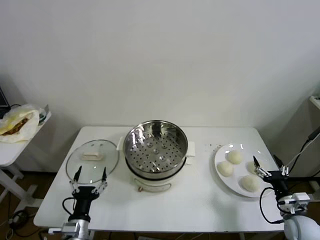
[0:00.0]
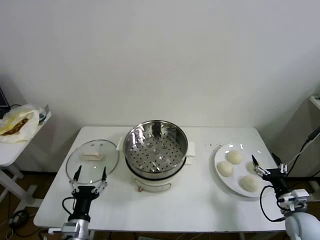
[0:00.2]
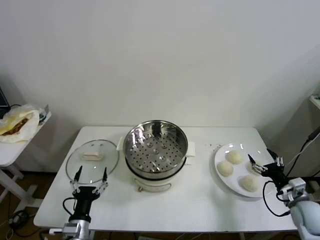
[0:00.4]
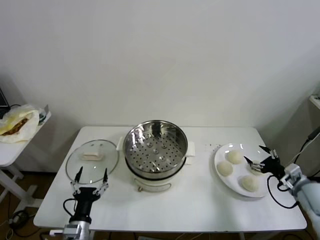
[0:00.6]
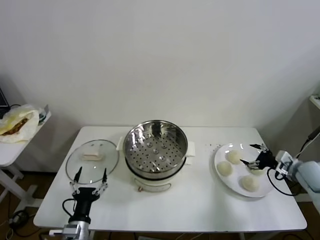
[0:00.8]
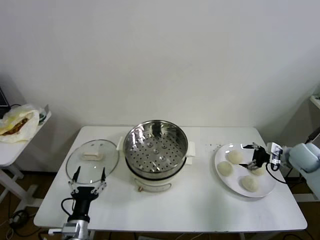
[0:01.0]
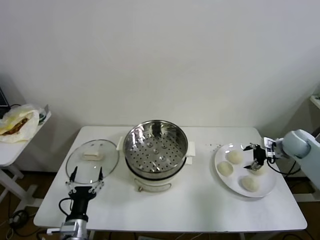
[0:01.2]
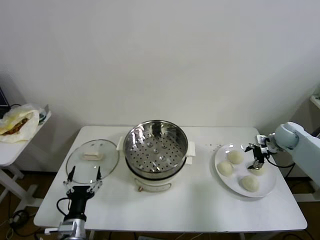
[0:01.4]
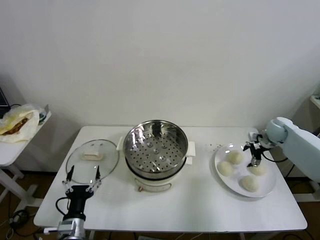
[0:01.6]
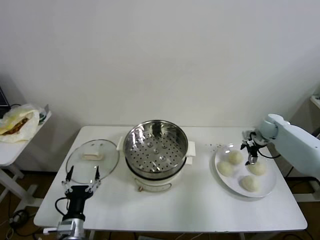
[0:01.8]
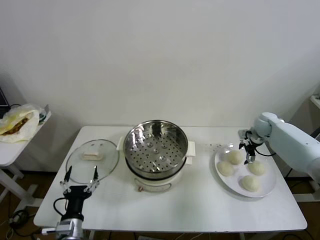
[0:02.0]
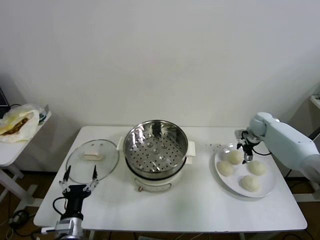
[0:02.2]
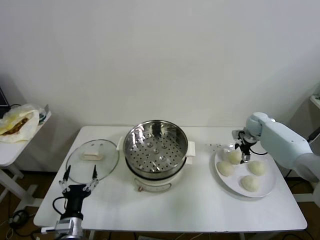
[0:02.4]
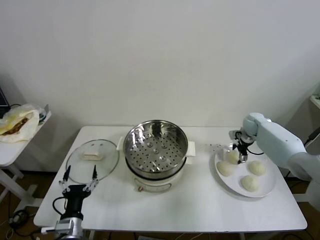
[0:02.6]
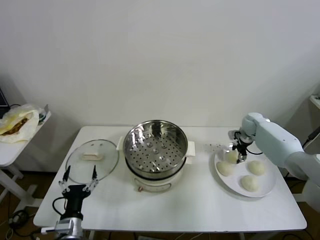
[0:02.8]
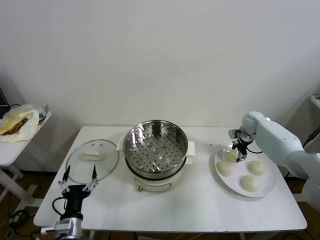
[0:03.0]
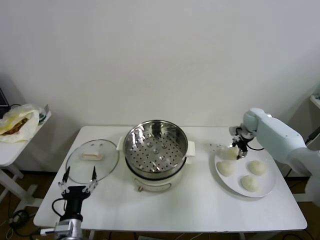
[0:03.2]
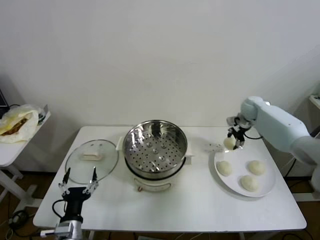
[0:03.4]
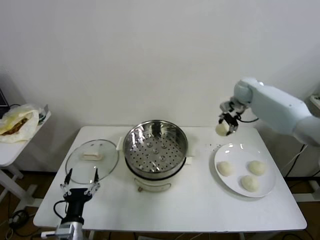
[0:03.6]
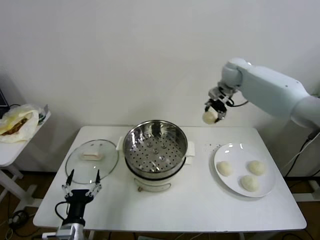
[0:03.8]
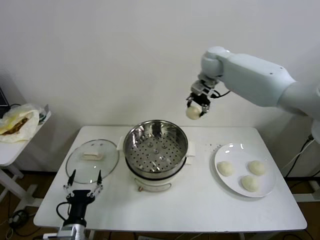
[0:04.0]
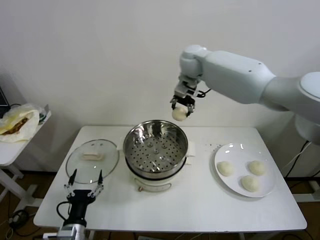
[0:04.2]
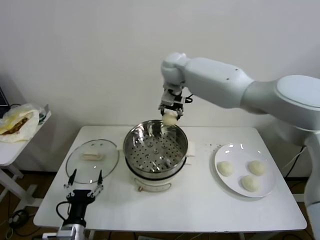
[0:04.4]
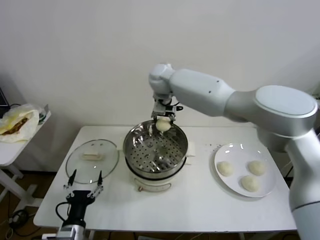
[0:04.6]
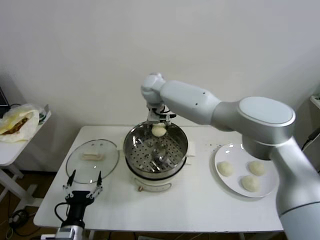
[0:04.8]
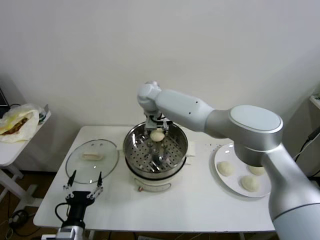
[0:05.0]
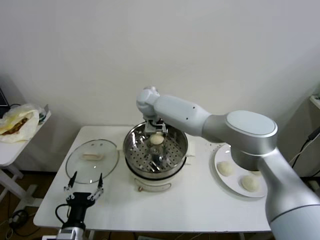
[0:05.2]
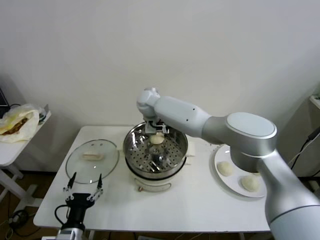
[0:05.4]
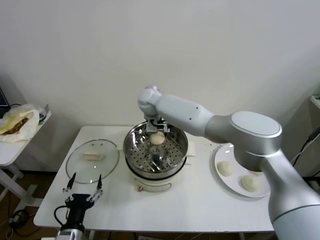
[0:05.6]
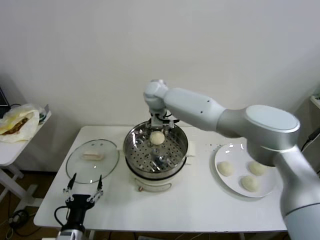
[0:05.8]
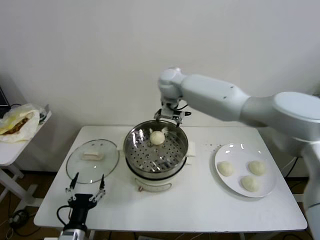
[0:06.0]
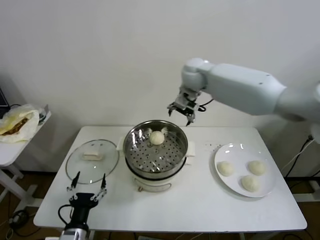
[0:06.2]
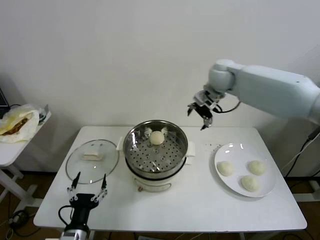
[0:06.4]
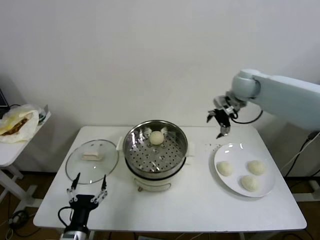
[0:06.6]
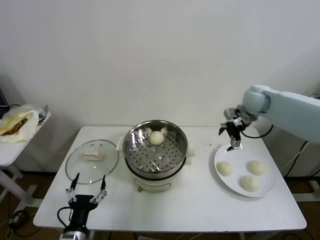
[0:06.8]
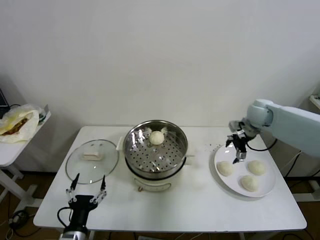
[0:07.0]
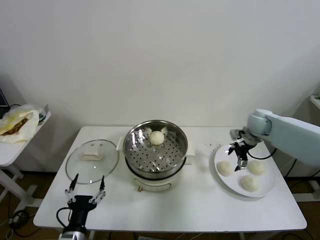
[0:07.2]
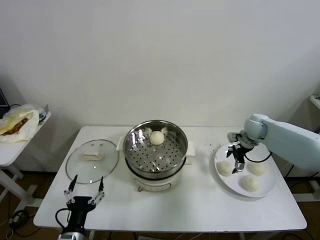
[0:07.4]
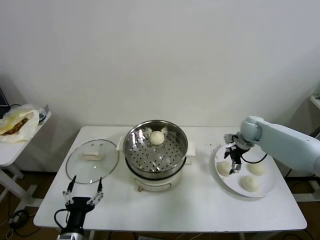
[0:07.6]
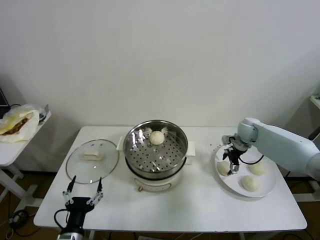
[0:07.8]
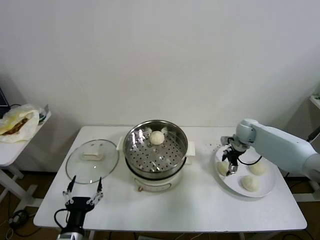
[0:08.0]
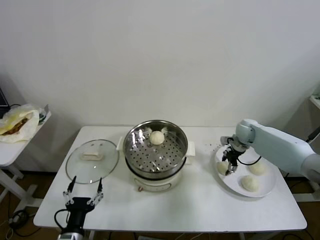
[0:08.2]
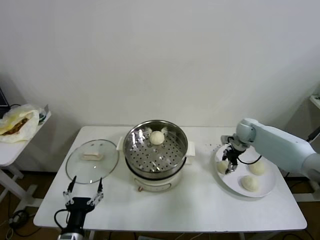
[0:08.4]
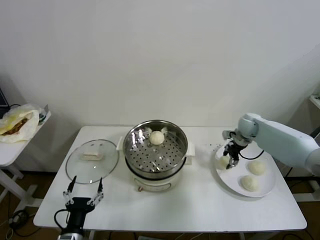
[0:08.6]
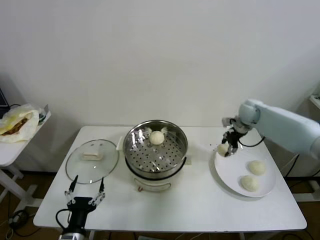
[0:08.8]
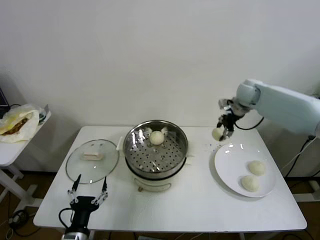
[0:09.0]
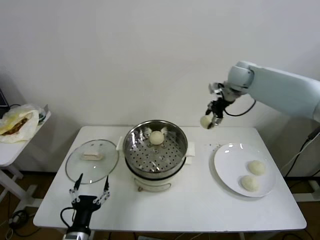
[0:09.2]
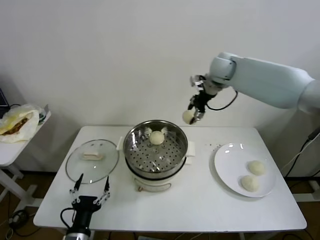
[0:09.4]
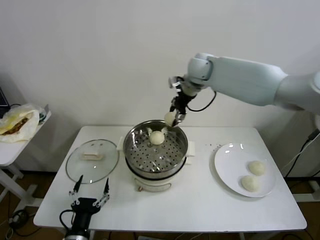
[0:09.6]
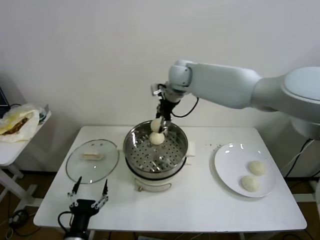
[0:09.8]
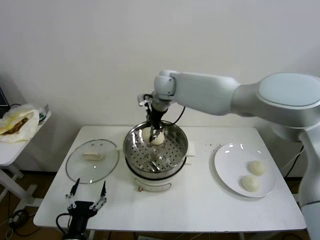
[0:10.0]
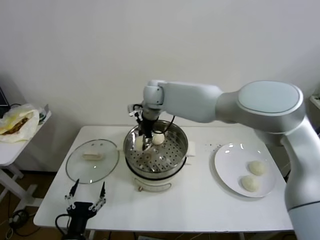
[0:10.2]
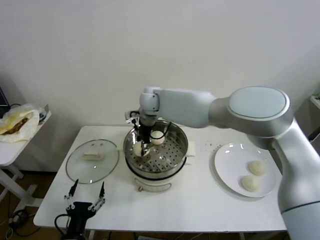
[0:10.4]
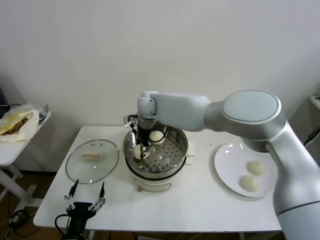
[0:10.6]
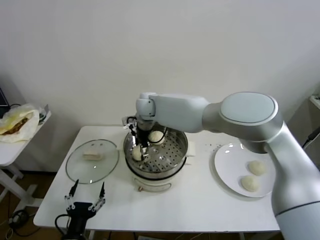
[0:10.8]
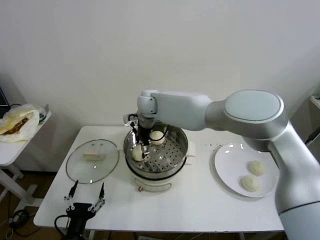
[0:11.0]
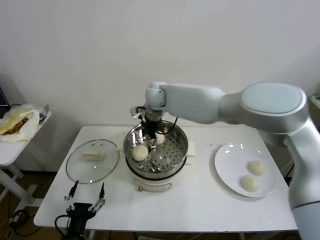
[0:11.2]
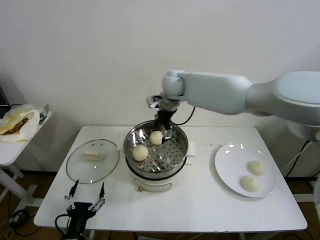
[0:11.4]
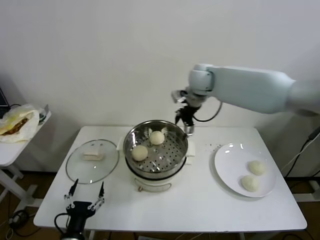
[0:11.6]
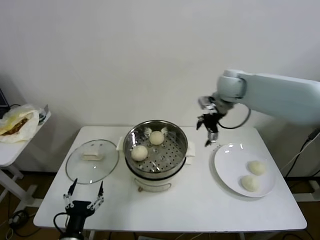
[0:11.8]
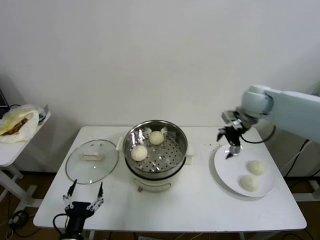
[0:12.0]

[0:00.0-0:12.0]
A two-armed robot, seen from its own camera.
Step, 0:00.0 to 0:02.8: Grasp the baozi in the plate with right gripper.
Step, 0:03.0 to 0:05.2: Place the baozi on the steamer with right gripper.
Step, 0:05.4 to 0:08.0: Grasp the baozi in the plate with right gripper.
Step, 0:08.2 to 0:10.6: Place the baozi on the steamer with right gripper.
0:01.6 to 0:03.0: The right gripper shifts approximately 10 cm forward and to the left, and closes its fingers.
0:03.0 to 0:04.4: The right gripper shifts about 40 cm to the left and upward.
0:04.4 to 0:06.0: The right gripper travels to the right by about 5 cm, and opens.
0:06.0 to 0:07.6: The right gripper moves to the right and downward, approximately 35 cm.
0:07.6 to 0:09.0: The right gripper goes approximately 20 cm upward, and closes.
0:09.0 to 0:10.4: The right gripper shifts roughly 35 cm to the left.
0:10.4 to 0:12.0: The right gripper is displaced to the right by some 35 cm, and opens its fingers.

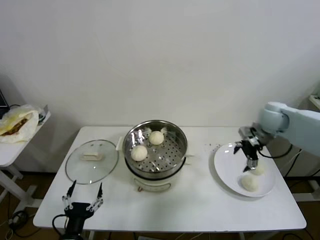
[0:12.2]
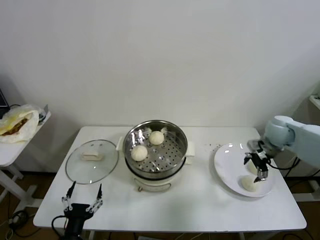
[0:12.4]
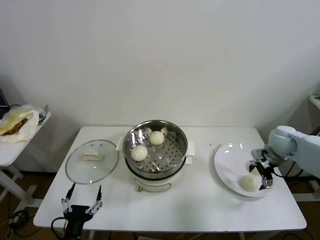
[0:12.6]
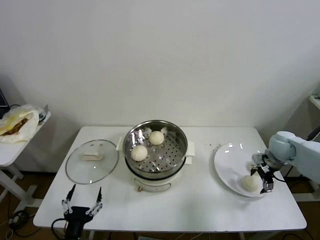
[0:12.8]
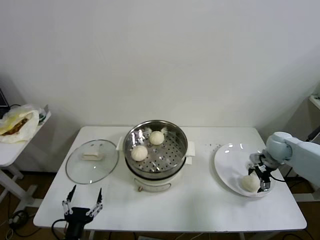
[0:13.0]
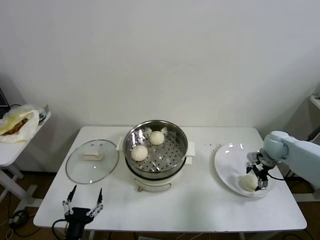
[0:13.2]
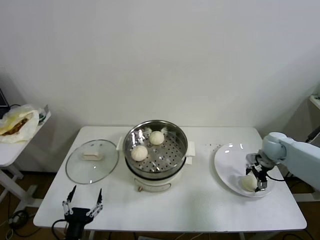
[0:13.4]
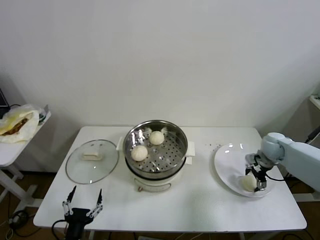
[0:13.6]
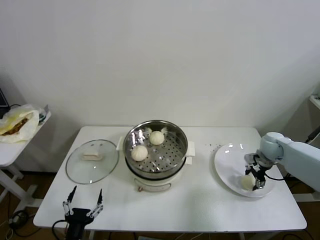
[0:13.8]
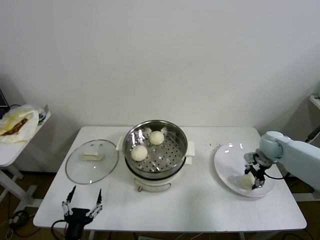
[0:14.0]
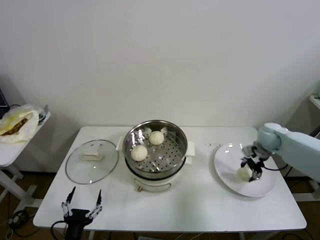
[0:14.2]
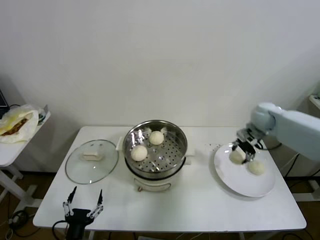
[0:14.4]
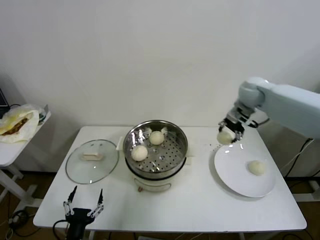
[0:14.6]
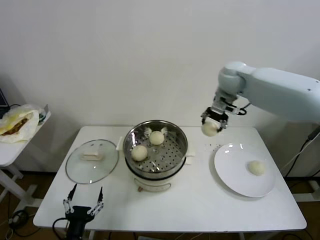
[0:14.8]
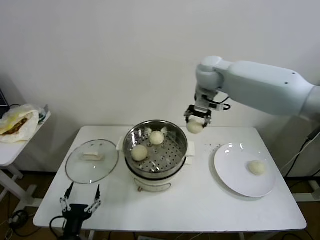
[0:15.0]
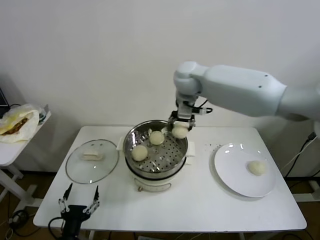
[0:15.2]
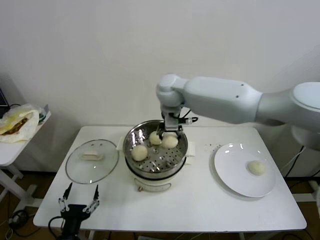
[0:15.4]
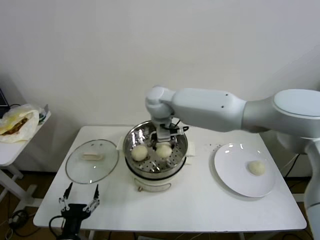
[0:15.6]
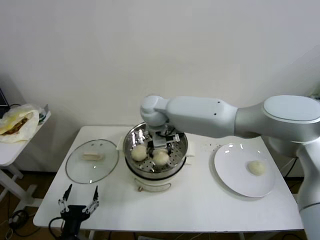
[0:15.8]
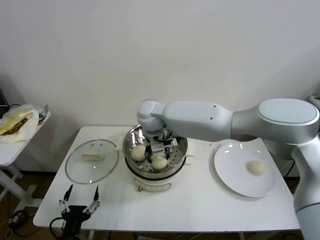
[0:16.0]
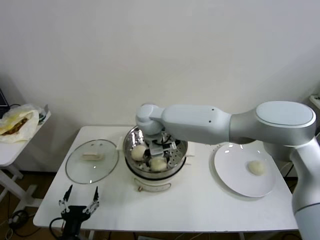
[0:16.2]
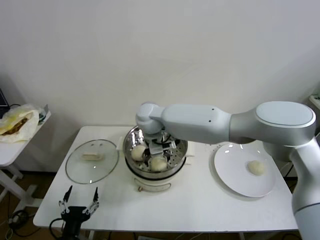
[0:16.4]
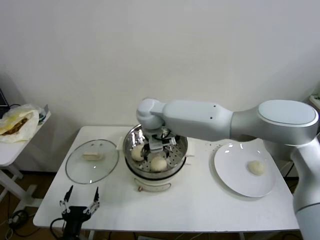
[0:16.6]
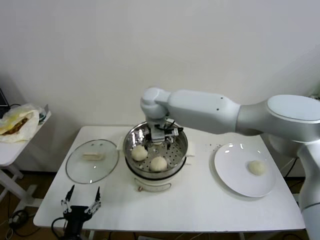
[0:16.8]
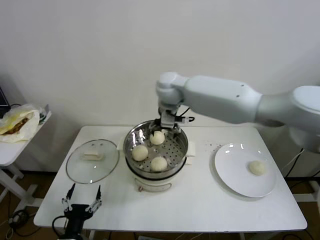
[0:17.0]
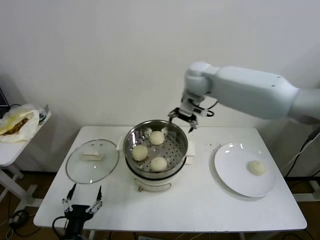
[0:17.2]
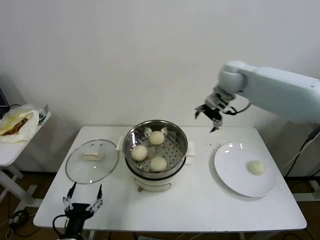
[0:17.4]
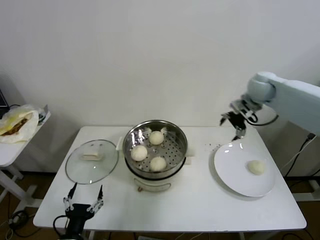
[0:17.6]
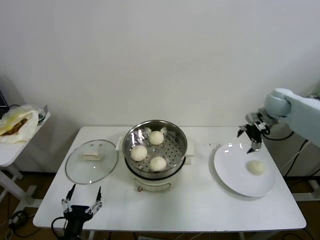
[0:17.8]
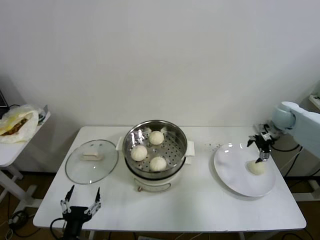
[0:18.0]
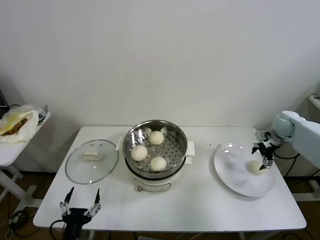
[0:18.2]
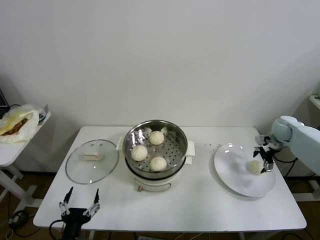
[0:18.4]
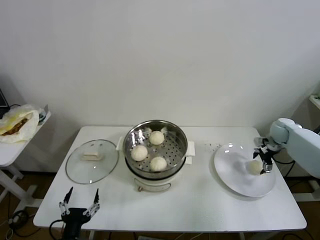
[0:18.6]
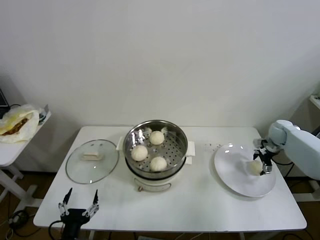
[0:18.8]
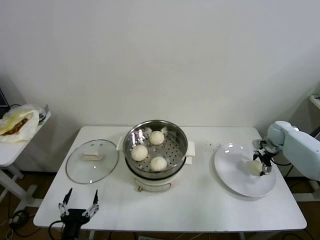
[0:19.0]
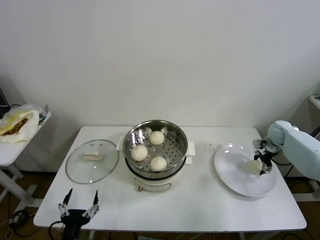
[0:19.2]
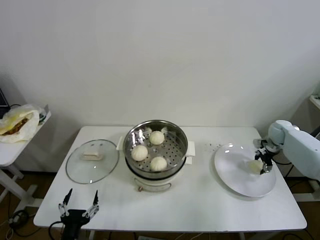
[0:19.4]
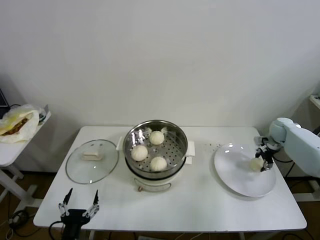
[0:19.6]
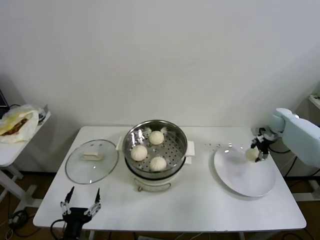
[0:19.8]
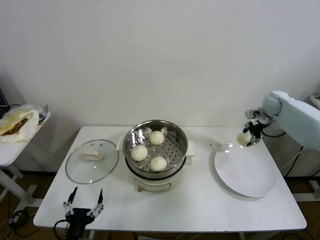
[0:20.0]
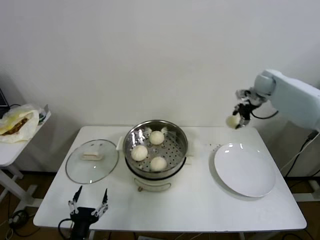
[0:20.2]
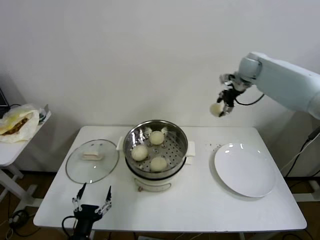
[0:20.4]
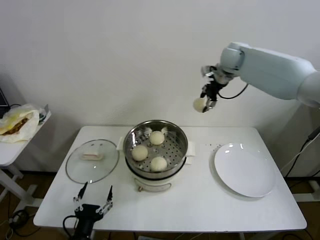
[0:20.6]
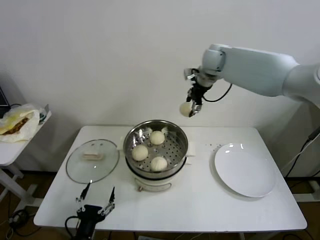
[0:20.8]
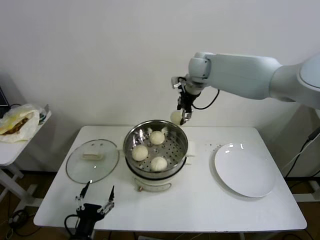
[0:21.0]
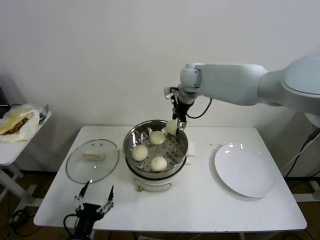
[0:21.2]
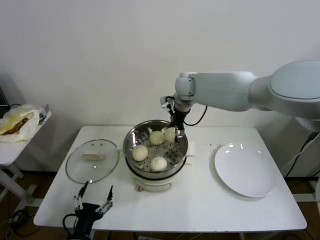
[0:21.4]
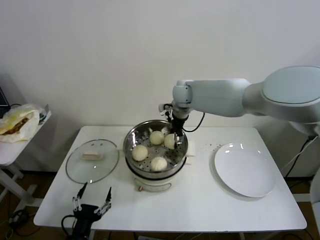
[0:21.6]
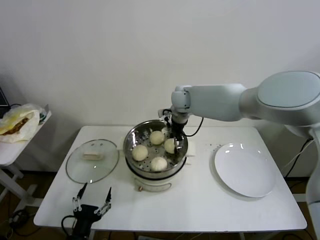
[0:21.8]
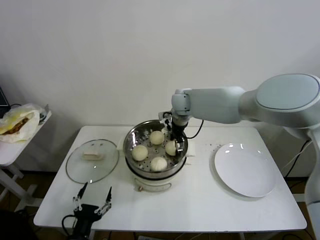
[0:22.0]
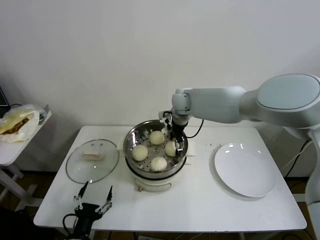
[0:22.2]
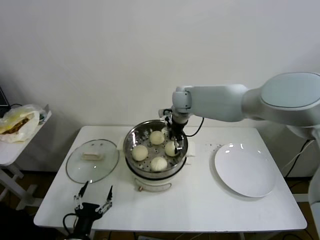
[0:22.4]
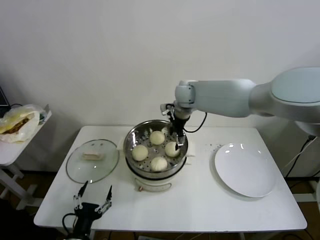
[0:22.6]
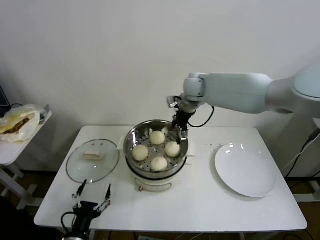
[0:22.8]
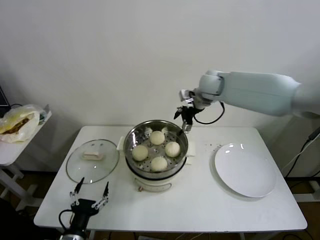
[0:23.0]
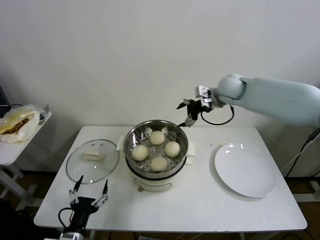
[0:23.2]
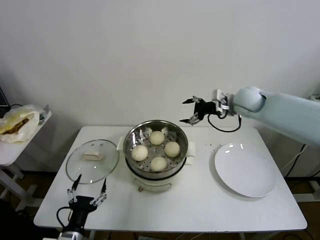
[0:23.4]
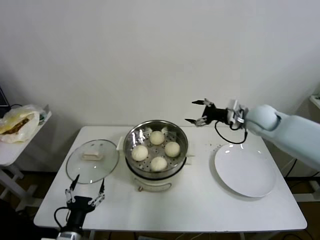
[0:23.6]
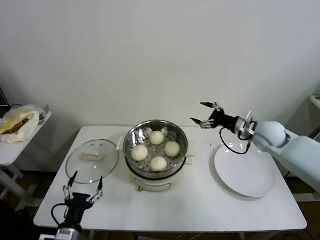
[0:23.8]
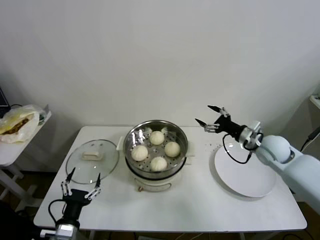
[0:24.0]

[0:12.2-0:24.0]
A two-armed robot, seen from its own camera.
Step, 0:12.2 to 0:13.6: Grasp the baozi in the plate with right gripper.
Step, 0:13.8 to 0:16.2: Place the baozi on the steamer with right gripper.
Step, 0:16.4 to 0:19.2: Grasp the baozi in the plate with right gripper.
Step, 0:19.4 to 0:22.0: Place the baozi on the steamer with right gripper.
0:12.2 to 0:13.6: The right gripper shifts some 10 cm downward.
0:13.6 to 0:15.2: The right gripper heads to the left and upward, covering roughly 40 cm, and closes its fingers.
0:15.2 to 0:16.6: The right gripper heads to the left and downward, covering approximately 15 cm, and opens up.
0:16.6 to 0:18.2: The right gripper shifts some 50 cm to the right.
0:18.2 to 0:19.6: The right gripper ends up approximately 5 cm from where it was, and closes up.
0:19.6 to 0:21.0: The right gripper shifts some 40 cm to the left and upward.
0:21.0 to 0:22.6: The right gripper travels downward by approximately 10 cm, and opens up.
0:22.6 to 0:24.0: The right gripper shifts some 35 cm to the right, backward and downward.
